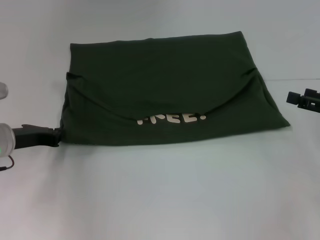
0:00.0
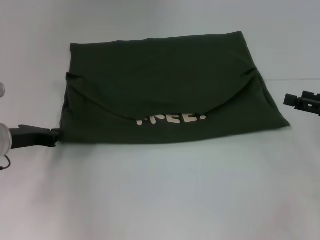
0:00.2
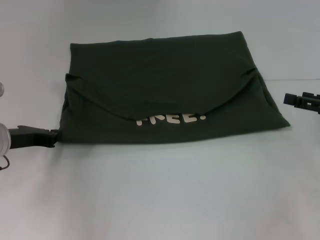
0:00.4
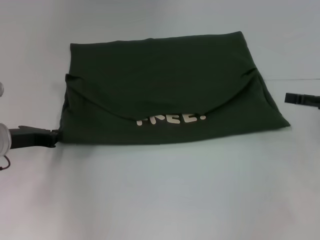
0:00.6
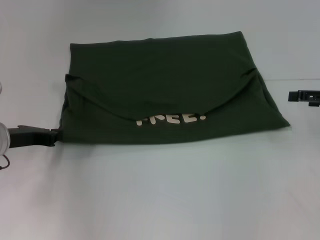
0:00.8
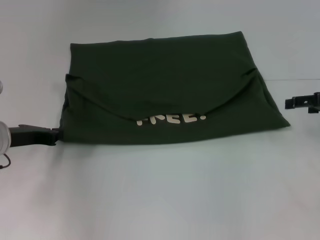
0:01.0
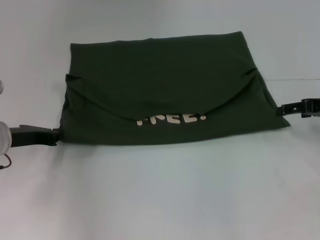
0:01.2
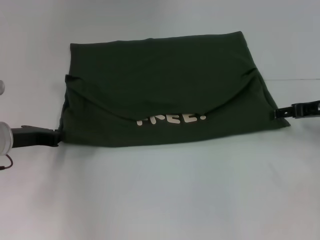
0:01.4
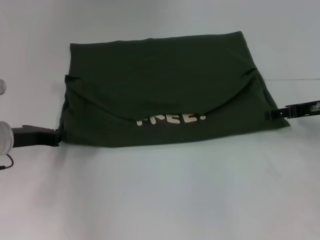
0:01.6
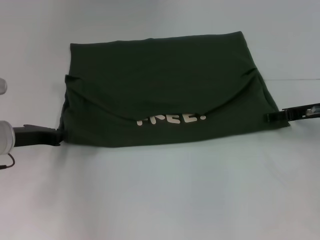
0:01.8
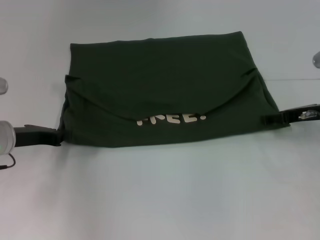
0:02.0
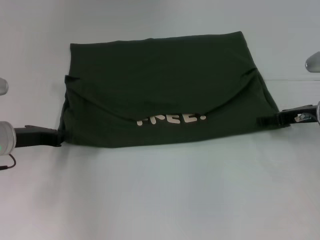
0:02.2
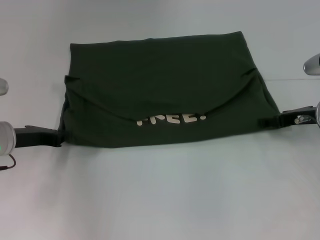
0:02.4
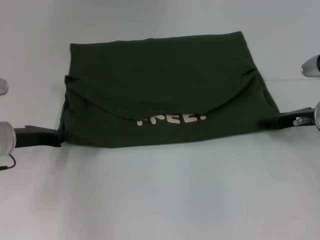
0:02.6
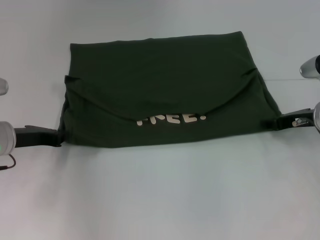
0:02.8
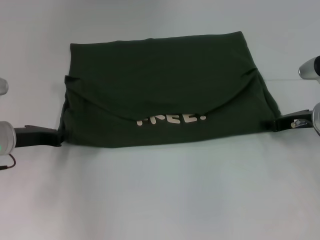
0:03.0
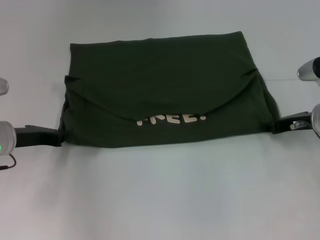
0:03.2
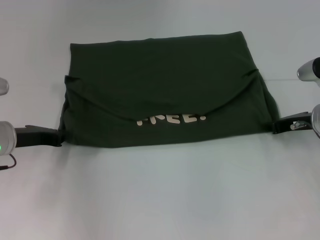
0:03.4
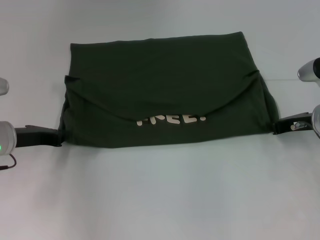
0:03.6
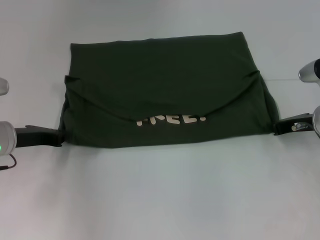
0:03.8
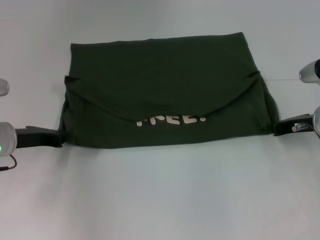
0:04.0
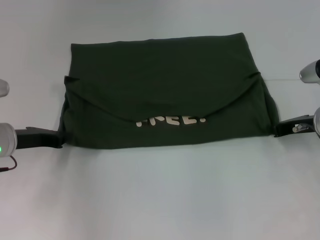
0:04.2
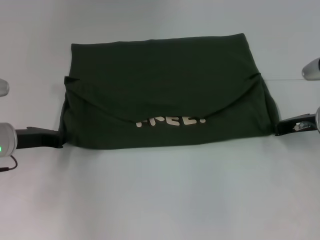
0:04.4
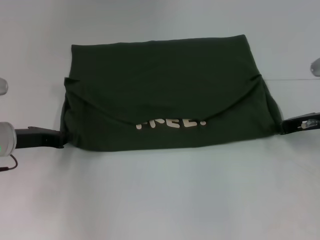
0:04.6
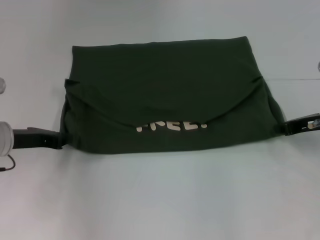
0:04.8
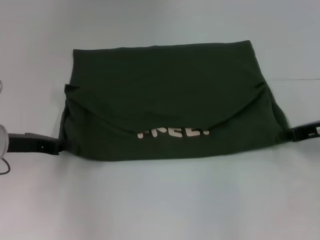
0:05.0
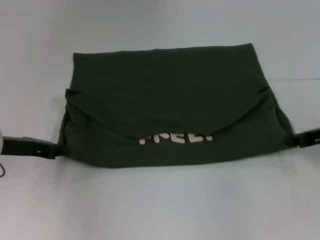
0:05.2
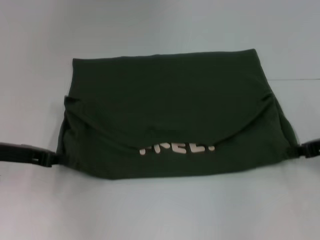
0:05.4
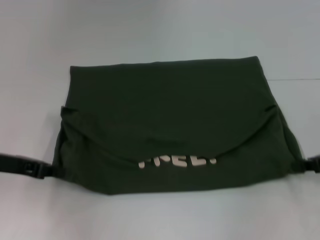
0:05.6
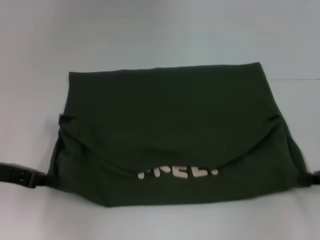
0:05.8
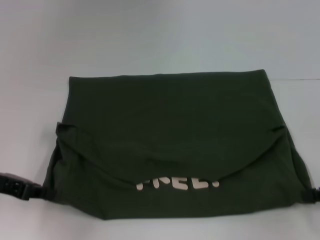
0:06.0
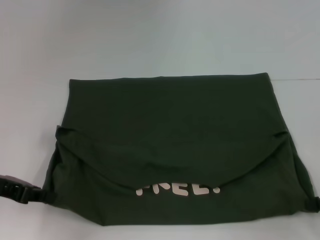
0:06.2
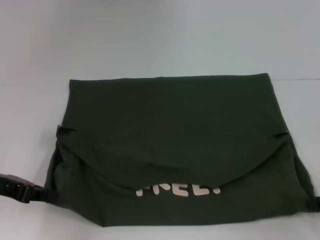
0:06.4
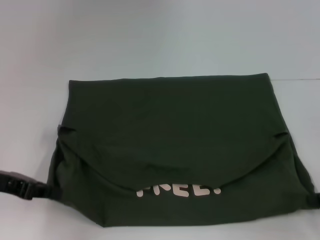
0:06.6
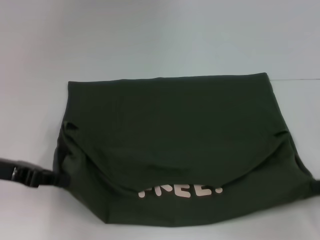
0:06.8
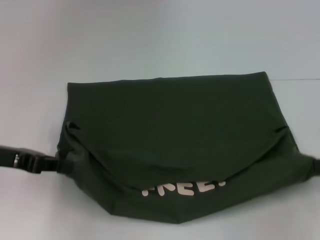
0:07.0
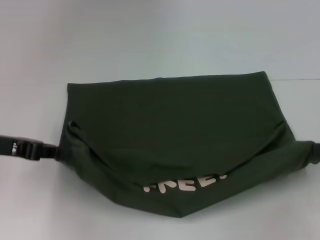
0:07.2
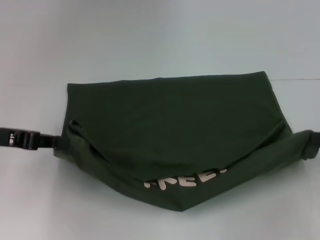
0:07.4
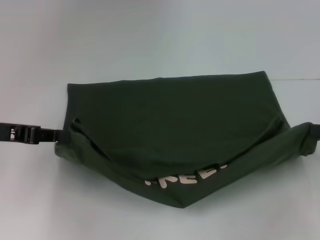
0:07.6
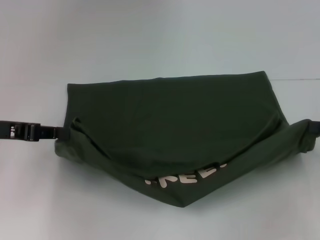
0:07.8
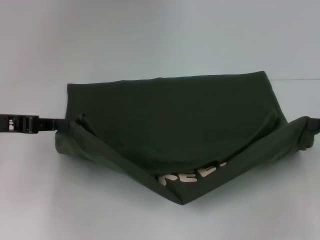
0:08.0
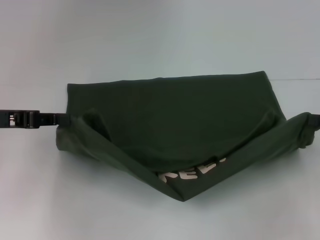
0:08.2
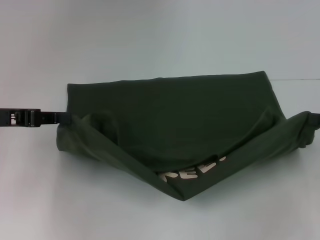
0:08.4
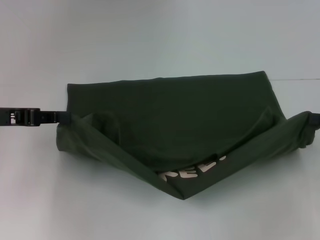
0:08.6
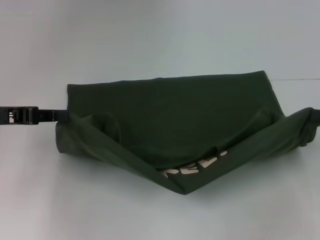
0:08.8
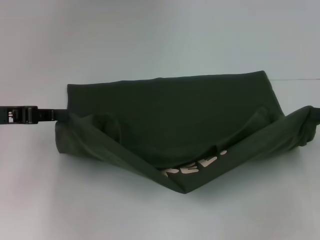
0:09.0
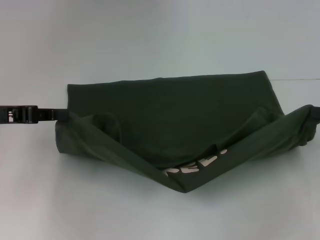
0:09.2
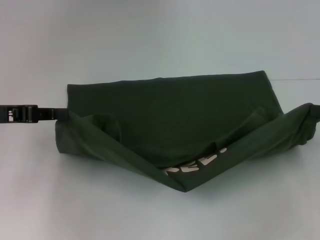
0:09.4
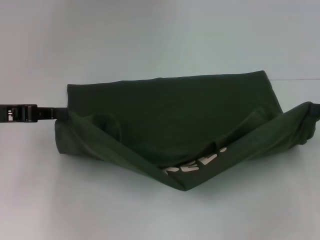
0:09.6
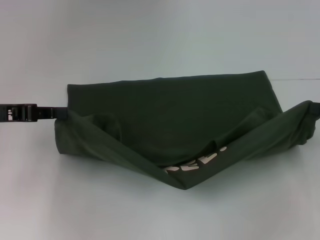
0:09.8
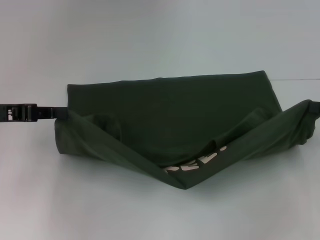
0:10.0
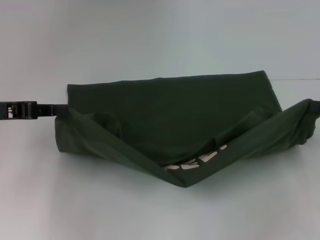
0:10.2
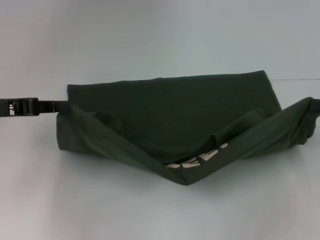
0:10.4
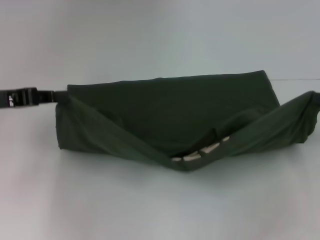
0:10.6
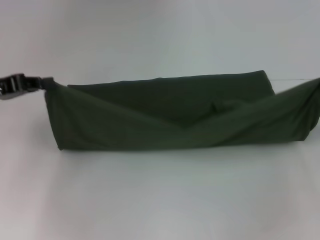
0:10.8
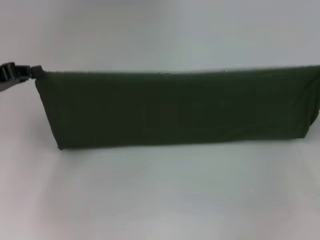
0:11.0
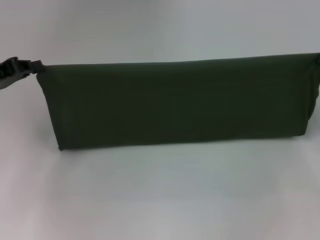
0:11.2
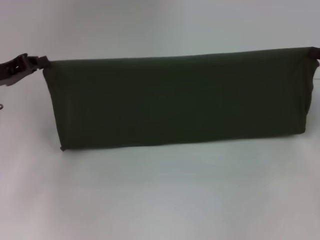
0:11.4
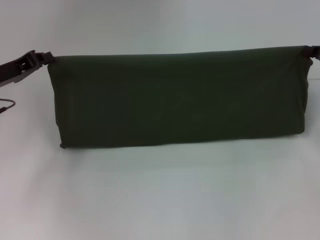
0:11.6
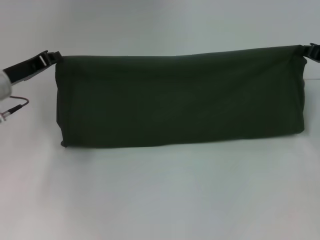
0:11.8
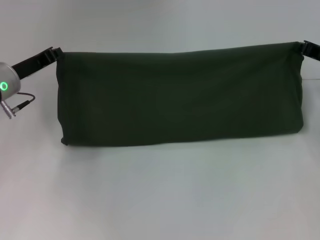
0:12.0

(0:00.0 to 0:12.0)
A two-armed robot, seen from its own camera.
Step, 0:00.0 - 0:06.4: Pull the clothes with your left hand.
Step, 0:00.0 - 0:06.4: Pull the clothes with your right hand.
0:00.0 - 0:01.6: The right gripper shifts some 10 cm forward and to the left.
0:01.6 - 0:03.0: The right gripper closes up.
0:03.0 - 0:04.4: The right gripper closes its fingers.
0:04.4 - 0:06.0: The right gripper moves backward and to the right, about 15 cm, while the left gripper goes some 5 cm backward.
0:06.0 - 0:07.6: The right gripper changes place by approximately 5 cm.
0:07.6 - 0:09.0: There are only small adjustments of the grippers.
0:09.0 - 0:10.4: Neither gripper changes place.
0:10.4 - 0:12.0: The left gripper heads forward, covering some 10 cm; the right gripper travels forward and to the left by about 10 cm.

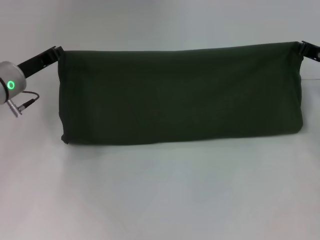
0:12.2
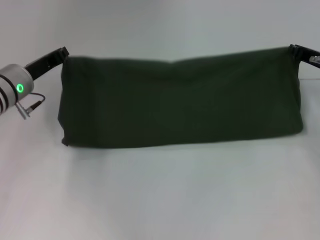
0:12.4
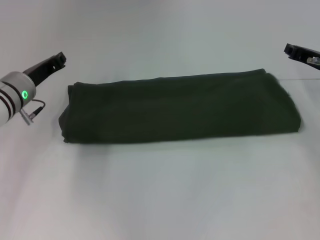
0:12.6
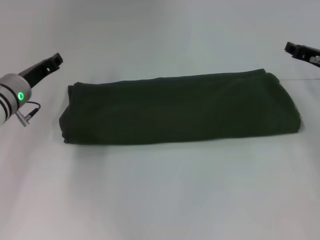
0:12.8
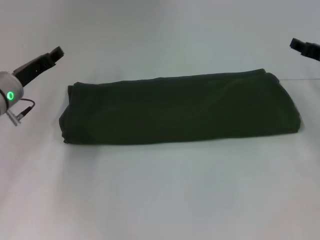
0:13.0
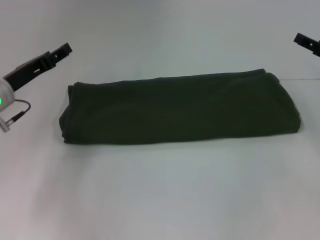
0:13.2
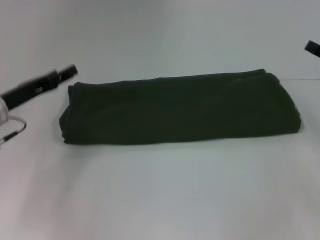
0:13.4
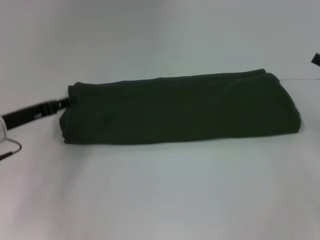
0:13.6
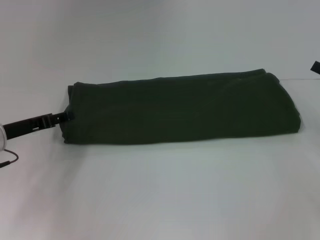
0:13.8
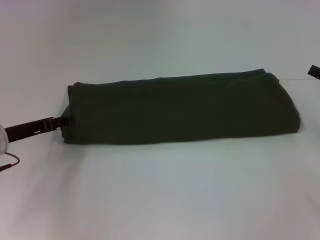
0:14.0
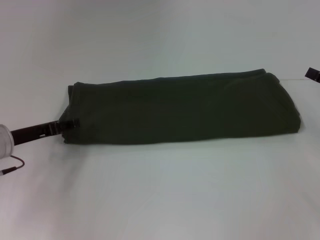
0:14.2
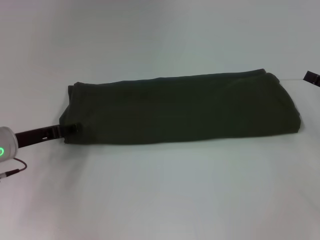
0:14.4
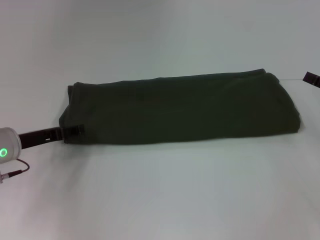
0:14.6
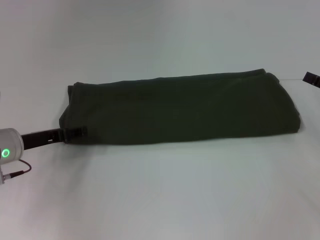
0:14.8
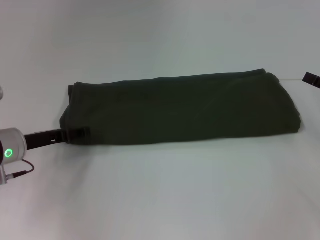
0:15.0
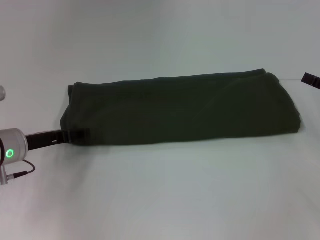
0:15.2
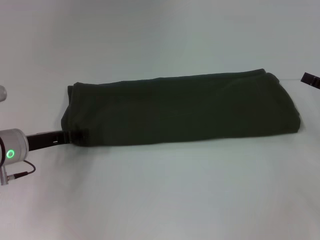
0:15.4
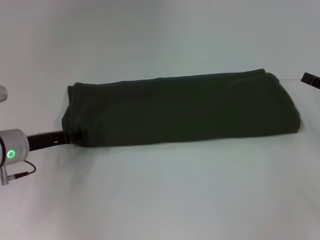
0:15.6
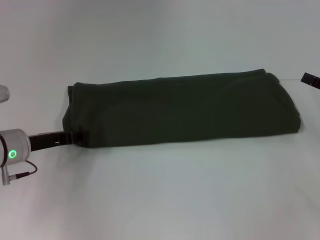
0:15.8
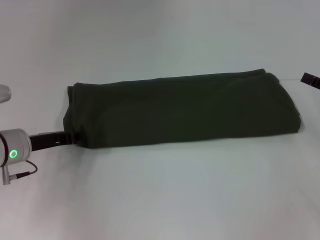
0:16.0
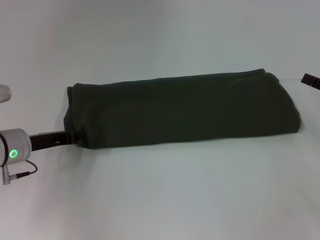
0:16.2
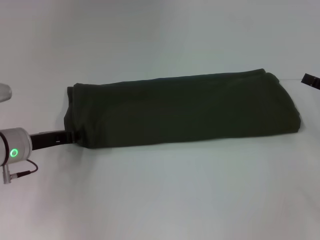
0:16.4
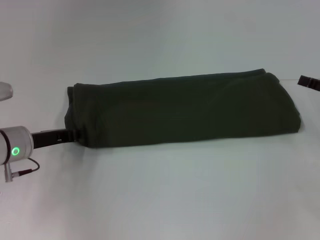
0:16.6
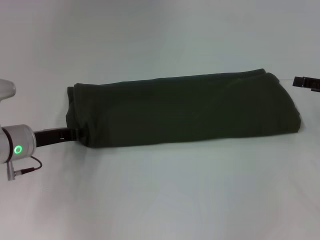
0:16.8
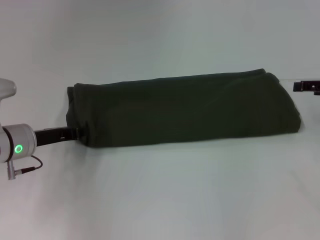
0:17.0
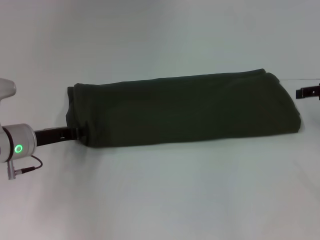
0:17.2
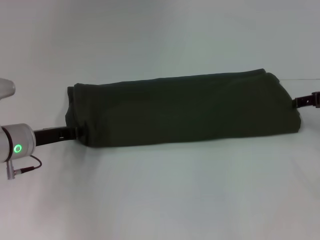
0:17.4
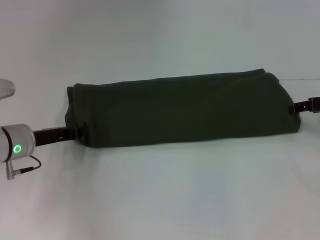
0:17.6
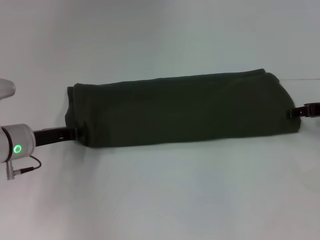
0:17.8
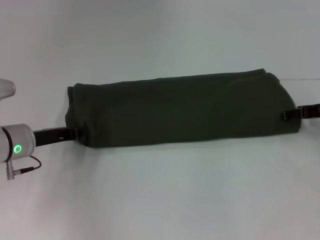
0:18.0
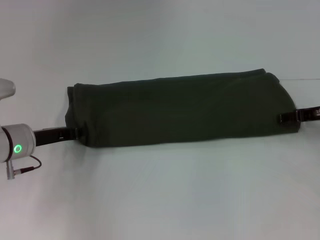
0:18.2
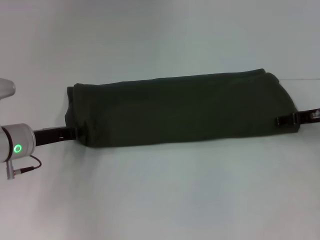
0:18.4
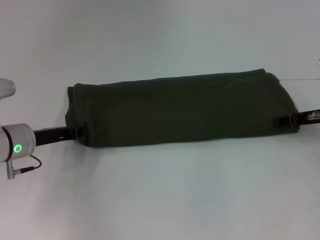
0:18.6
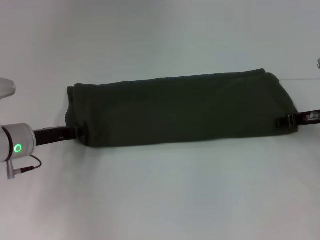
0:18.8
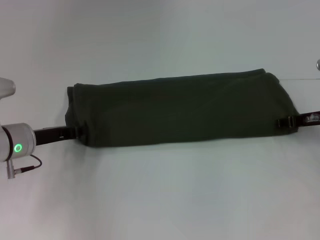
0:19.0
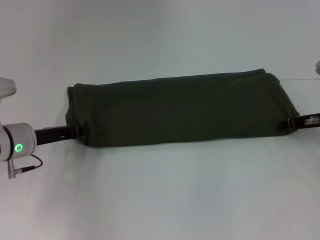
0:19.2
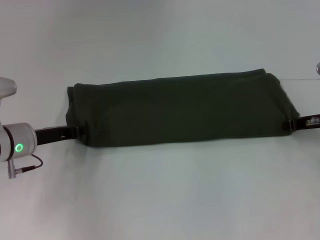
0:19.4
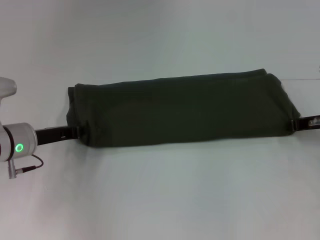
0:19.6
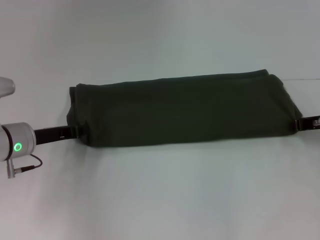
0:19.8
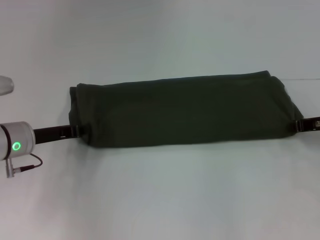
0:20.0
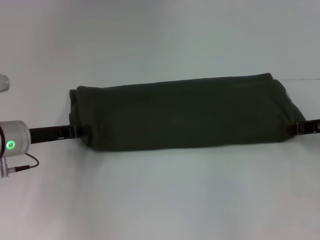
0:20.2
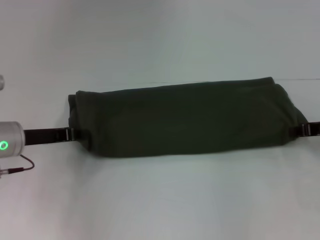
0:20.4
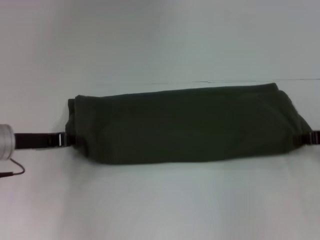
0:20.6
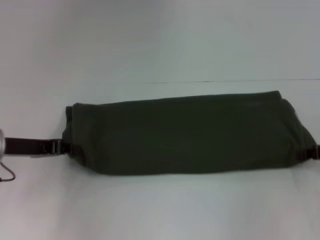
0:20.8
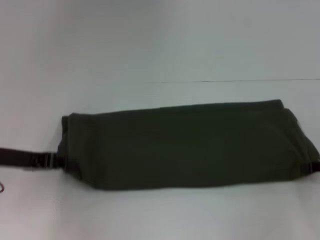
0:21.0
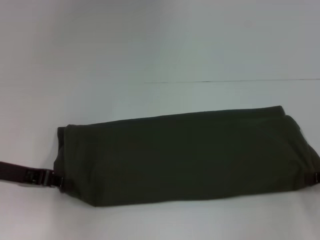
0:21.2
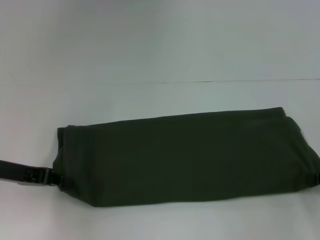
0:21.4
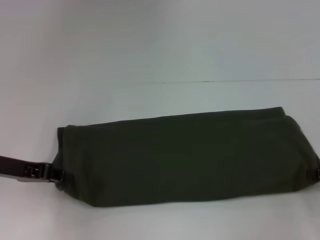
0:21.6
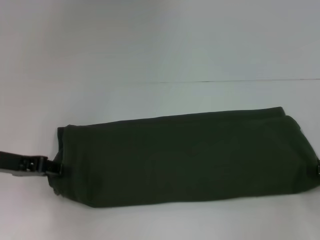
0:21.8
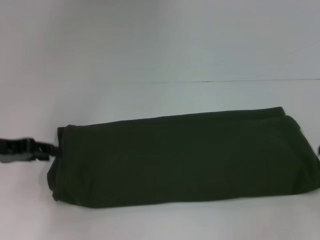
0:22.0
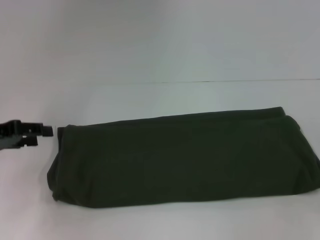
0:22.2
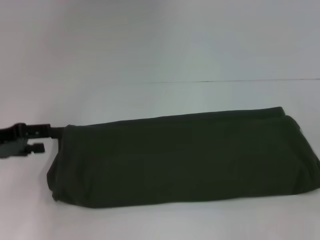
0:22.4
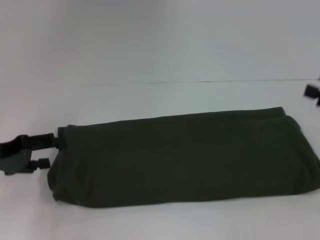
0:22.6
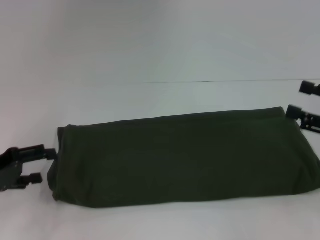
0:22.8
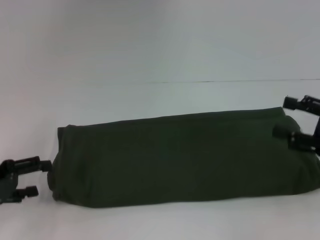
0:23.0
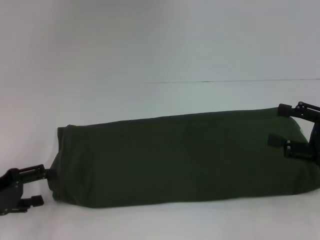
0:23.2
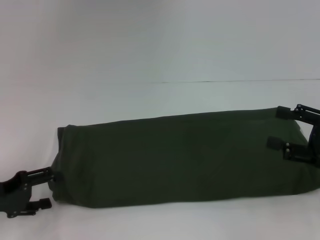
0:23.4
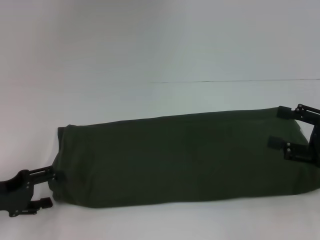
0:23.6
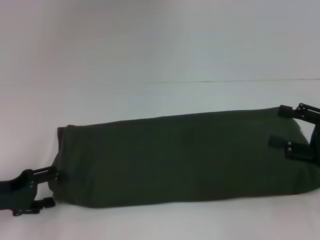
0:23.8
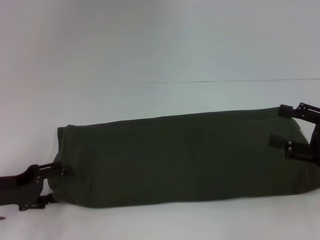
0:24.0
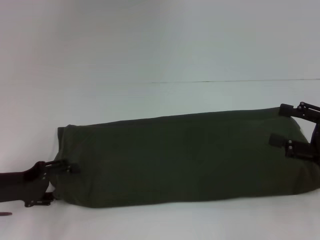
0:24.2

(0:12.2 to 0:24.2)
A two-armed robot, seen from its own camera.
0:12.2 - 0:13.8: The left gripper is displaced backward by about 5 cm, and opens up. Meanwhile the right gripper travels backward and to the right by roughly 10 cm, and opens its fingers.
0:13.8 - 0:15.2: There are only small adjustments of the grippers.
0:15.2 - 0:16.6: The left gripper closes.
0:16.6 - 0:18.2: The right gripper is displaced to the left and forward by some 10 cm.
0:18.2 - 0:19.8: The right gripper closes up.
0:19.8 - 0:21.2: The right gripper travels backward and to the right by about 10 cm, while the left gripper heads backward, covering some 5 cm.
0:21.2 - 0:22.6: The left gripper opens. The right gripper opens.
0:22.6 - 0:24.2: The left gripper travels downward by roughly 5 cm.
